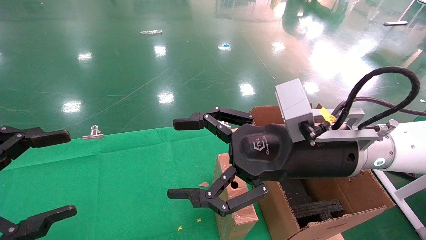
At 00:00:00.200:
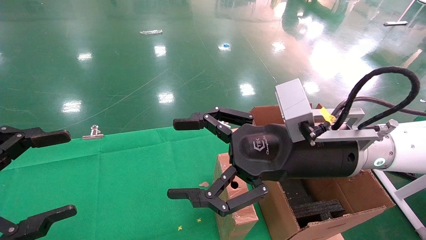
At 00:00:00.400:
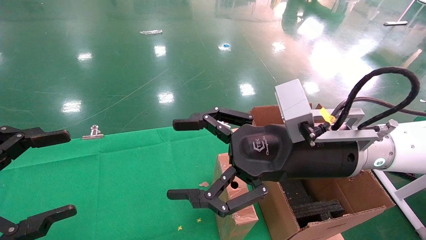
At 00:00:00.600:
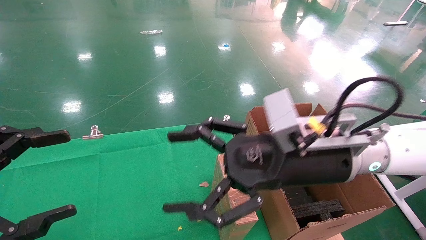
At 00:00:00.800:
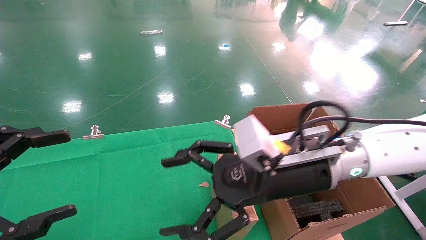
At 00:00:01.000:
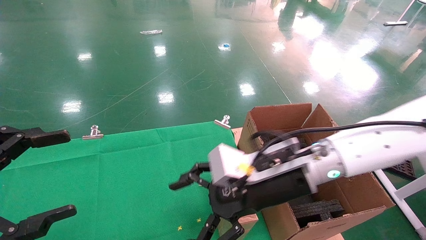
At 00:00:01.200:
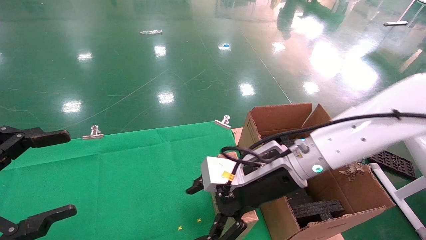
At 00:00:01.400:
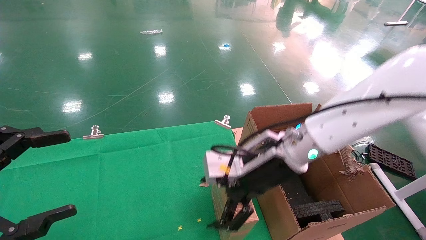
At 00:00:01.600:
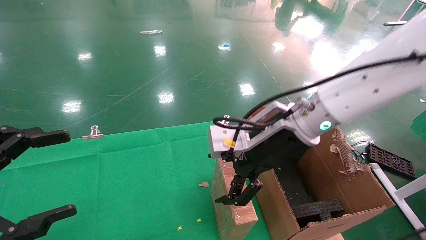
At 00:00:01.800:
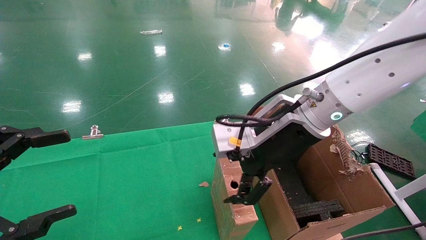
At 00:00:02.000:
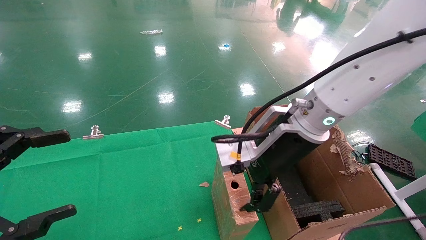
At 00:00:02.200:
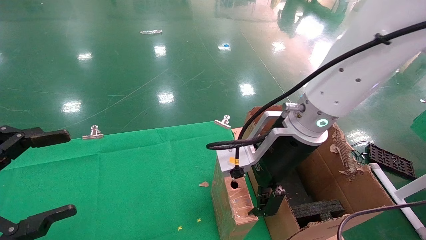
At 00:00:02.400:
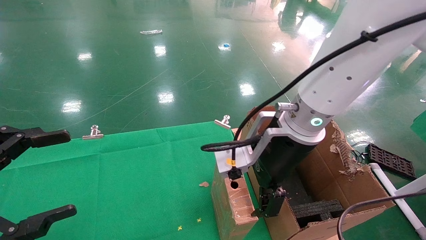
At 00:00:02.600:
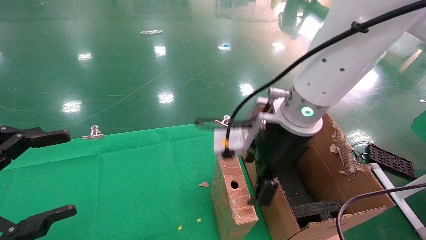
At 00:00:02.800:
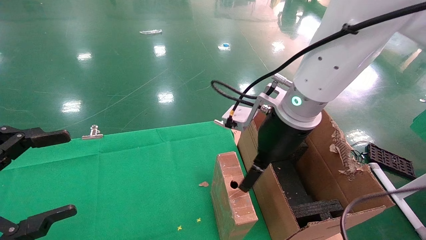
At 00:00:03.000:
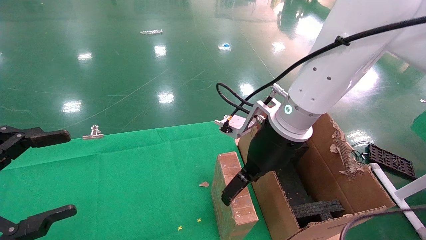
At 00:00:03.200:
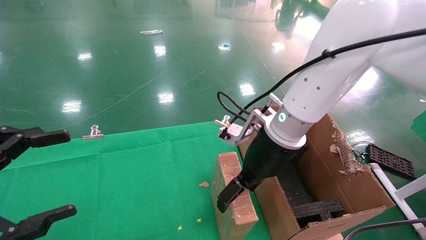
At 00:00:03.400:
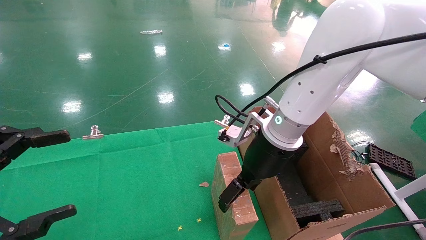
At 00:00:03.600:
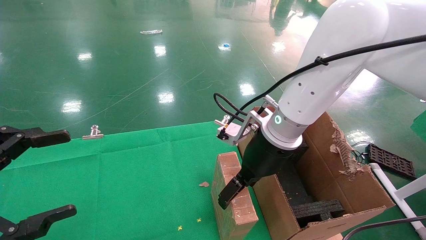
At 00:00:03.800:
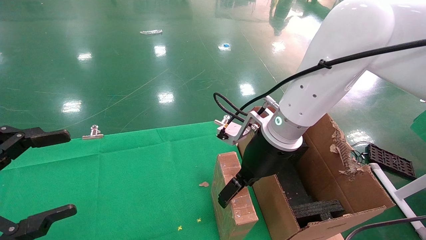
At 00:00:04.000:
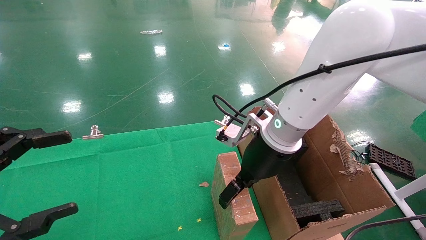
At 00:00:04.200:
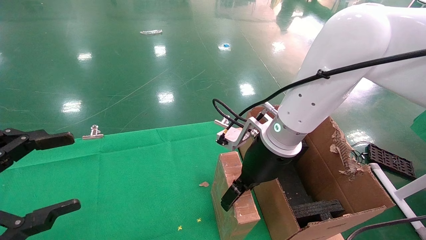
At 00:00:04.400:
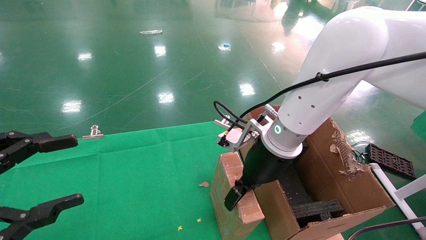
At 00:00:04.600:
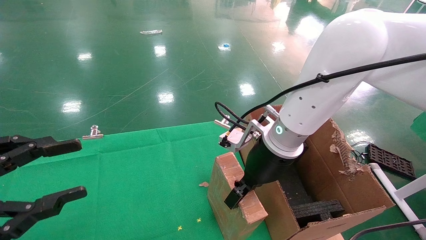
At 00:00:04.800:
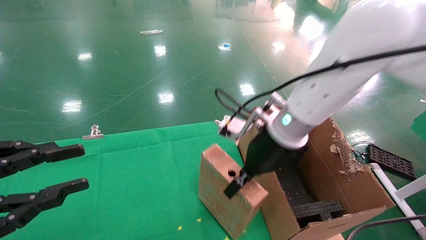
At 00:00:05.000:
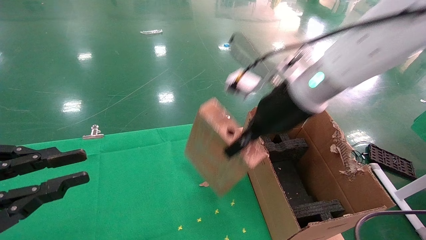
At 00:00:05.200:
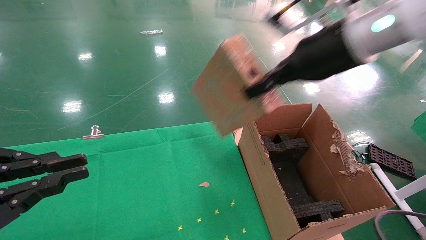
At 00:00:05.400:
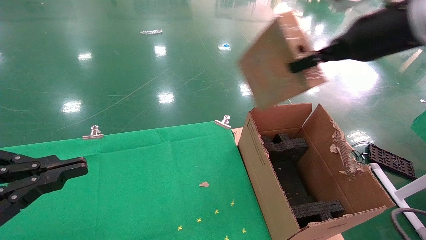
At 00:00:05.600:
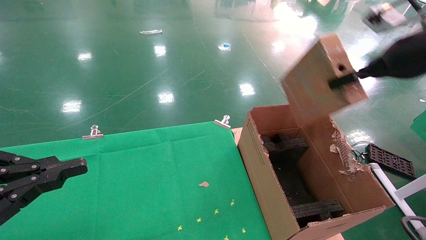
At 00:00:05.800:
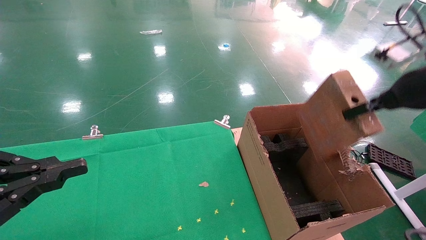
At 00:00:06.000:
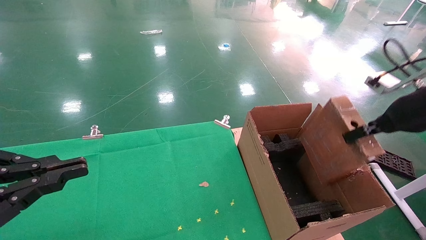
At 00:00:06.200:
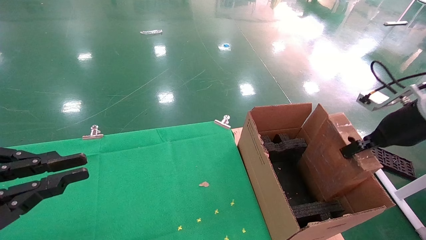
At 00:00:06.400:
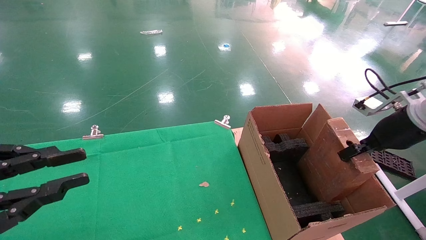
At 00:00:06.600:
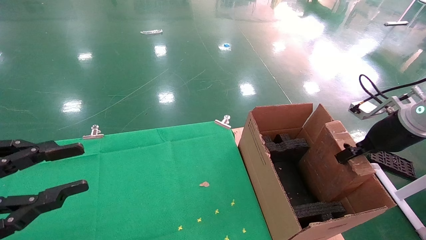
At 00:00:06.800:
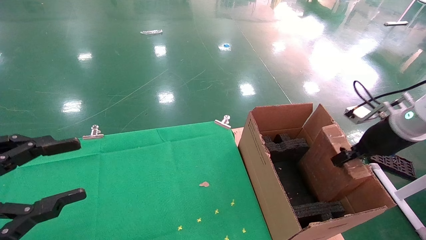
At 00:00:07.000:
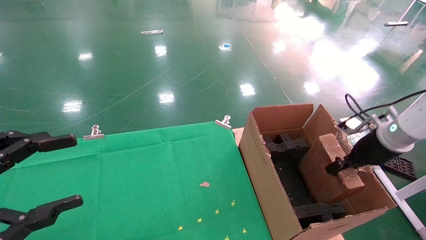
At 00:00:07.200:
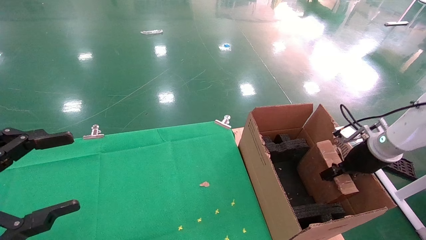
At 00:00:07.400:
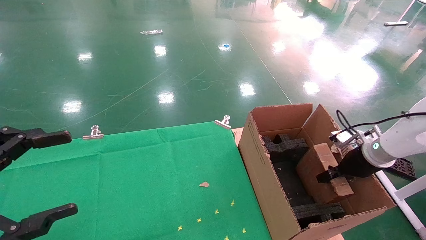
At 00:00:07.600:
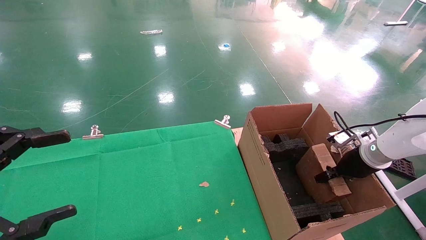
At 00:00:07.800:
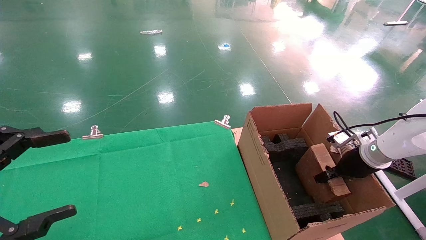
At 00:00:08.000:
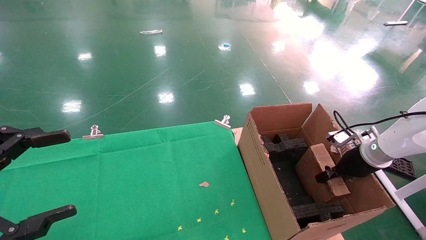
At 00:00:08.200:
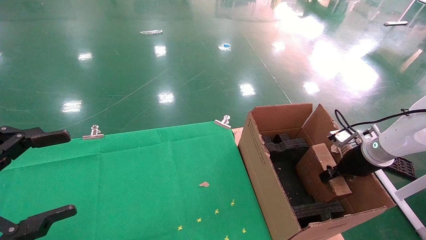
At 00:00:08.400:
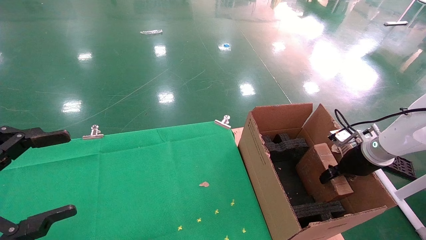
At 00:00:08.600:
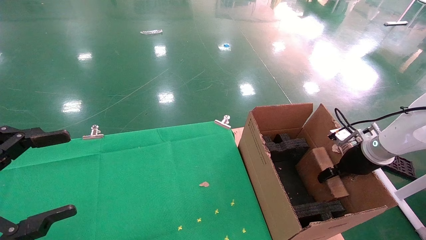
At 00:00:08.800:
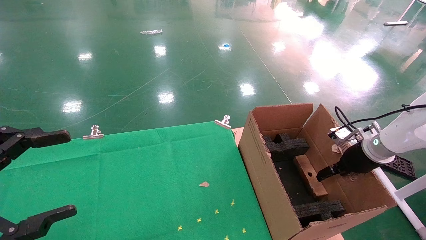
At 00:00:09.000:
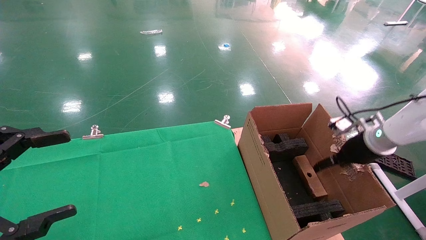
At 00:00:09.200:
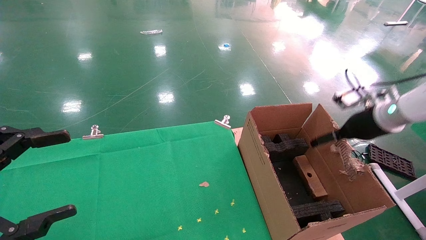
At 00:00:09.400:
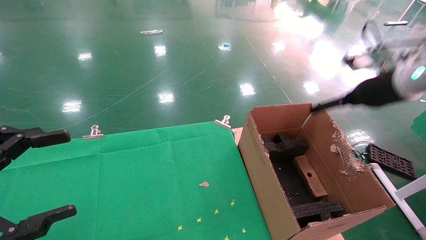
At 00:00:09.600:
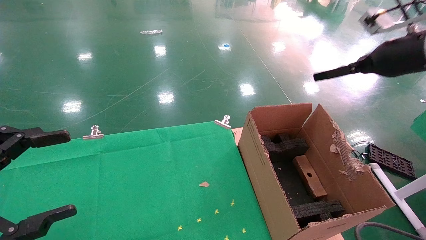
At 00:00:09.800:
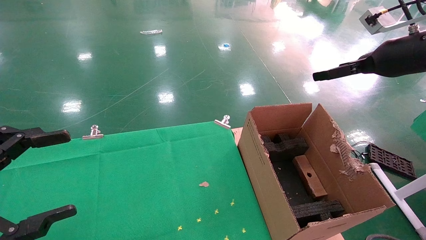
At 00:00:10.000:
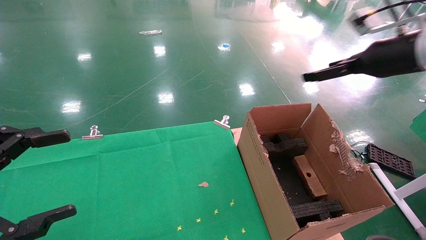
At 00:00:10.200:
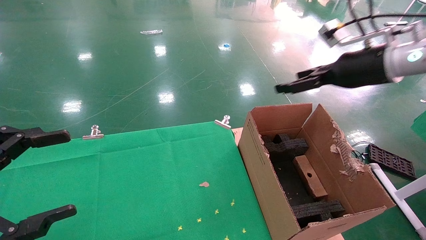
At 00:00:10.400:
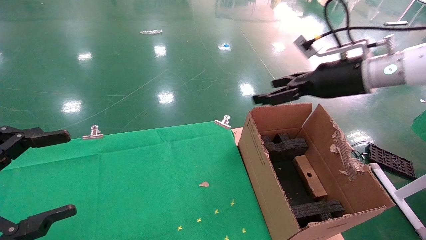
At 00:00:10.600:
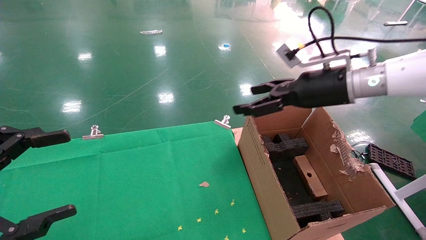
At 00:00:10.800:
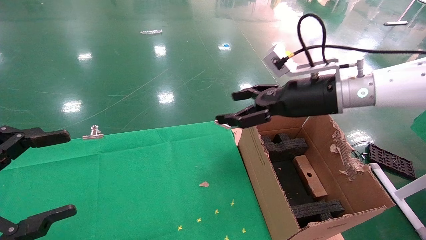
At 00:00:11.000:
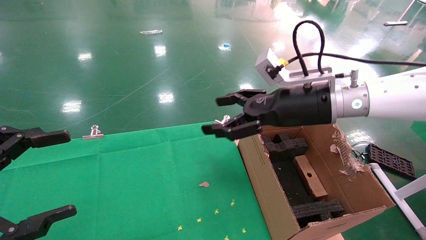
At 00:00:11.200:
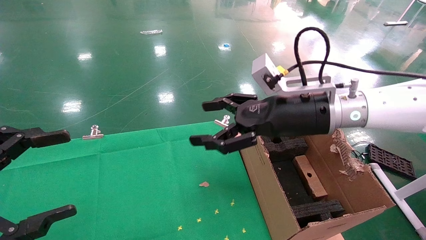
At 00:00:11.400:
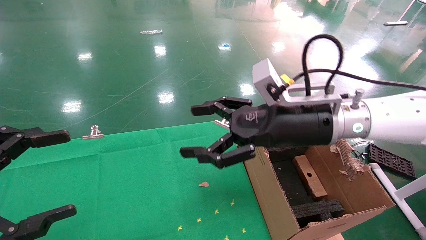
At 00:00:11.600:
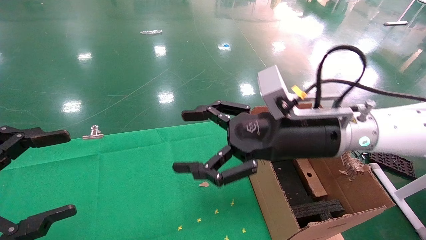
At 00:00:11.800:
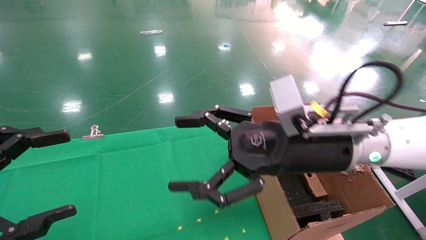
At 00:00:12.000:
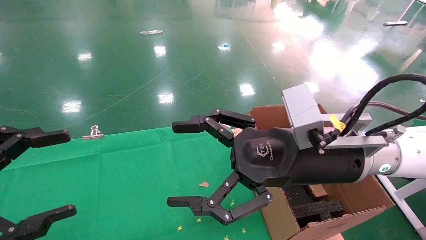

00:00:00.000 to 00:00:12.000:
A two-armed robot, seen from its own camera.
Task of the whole recording: using a robotic arm to pick up a cardboard box and palace it the carton.
Step, 00:00:01.000 to 00:00:04.400: Pick up the mouse and the power cord paper box.
Step, 00:00:04.600 to 00:00:09.400: Place the mouse and the power cord paper box into the container.
00:00:00.000 to 00:00:01.600: The right gripper is displaced forward by approximately 5 cm.
00:00:03.000 to 00:00:04.400: The right gripper closes.
00:00:04.400 to 00:00:06.000: The right gripper is displaced to the right by some 30 cm, and closes its fingers, while the left gripper closes up.
00:00:06.000 to 00:00:07.600: The right gripper shifts roughly 20 cm downward and forward. Meanwhile the left gripper opens up.
00:00:07.600 to 00:00:09.000: The right gripper goes about 5 cm upward, and opens its fingers.
00:00:09.000 to 00:00:10.400: The right gripper travels upward and to the left by approximately 20 cm.
00:00:10.400 to 00:00:12.000: The right gripper shifts about 20 cm to the left, backward and downward.

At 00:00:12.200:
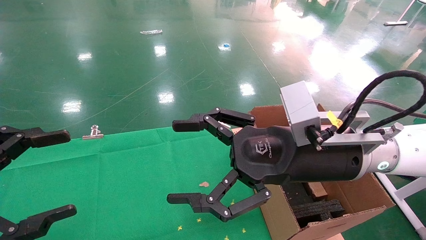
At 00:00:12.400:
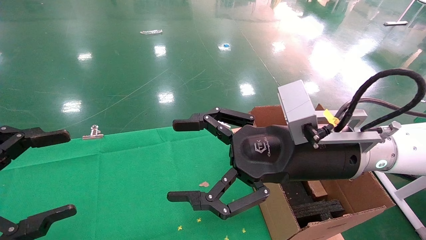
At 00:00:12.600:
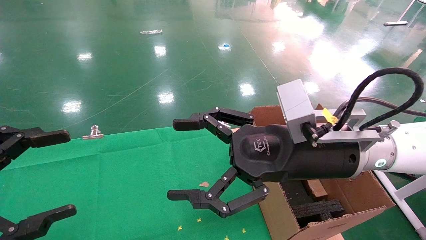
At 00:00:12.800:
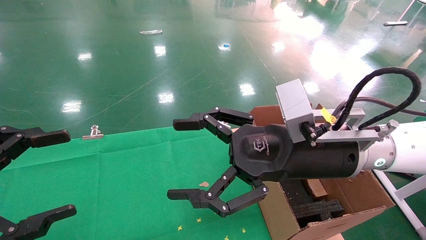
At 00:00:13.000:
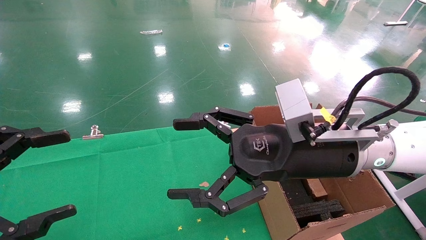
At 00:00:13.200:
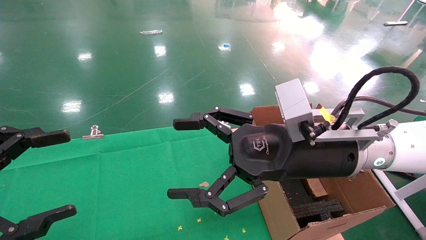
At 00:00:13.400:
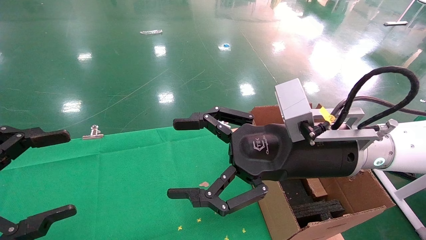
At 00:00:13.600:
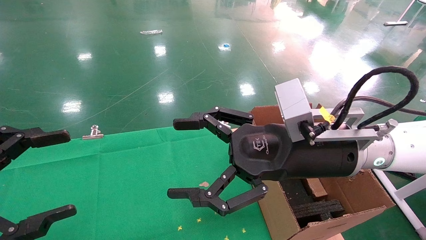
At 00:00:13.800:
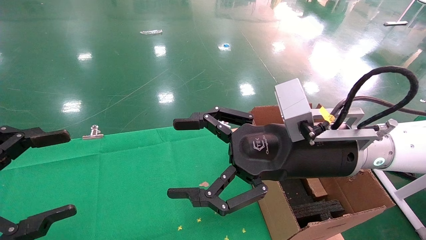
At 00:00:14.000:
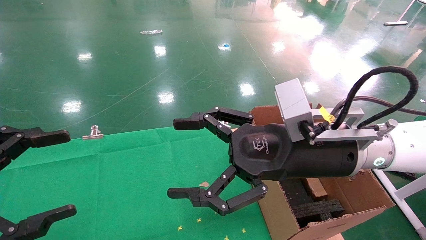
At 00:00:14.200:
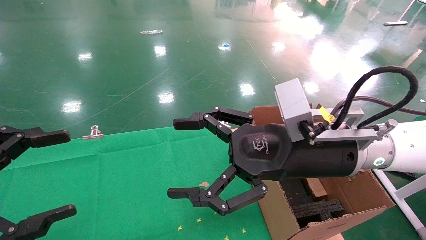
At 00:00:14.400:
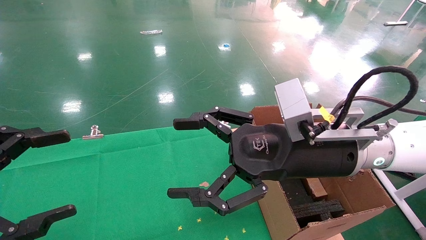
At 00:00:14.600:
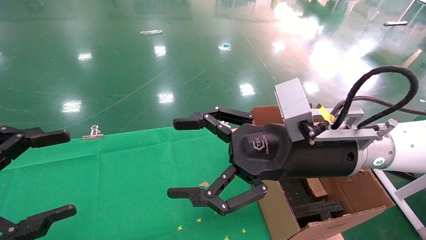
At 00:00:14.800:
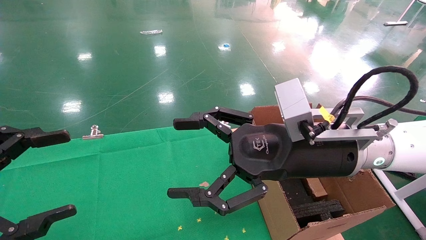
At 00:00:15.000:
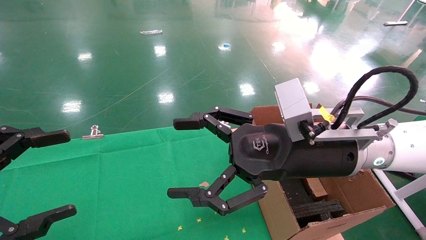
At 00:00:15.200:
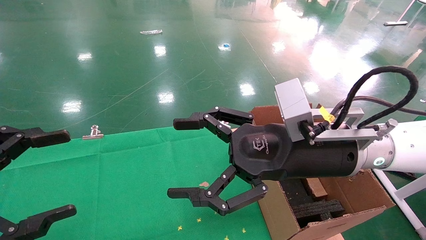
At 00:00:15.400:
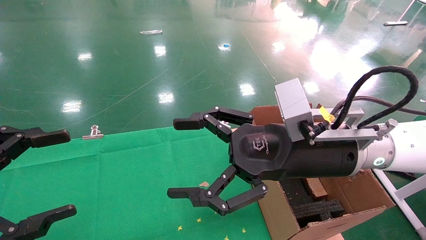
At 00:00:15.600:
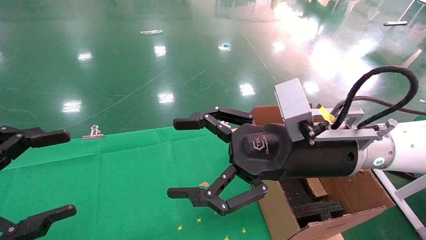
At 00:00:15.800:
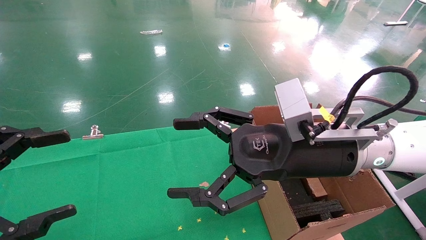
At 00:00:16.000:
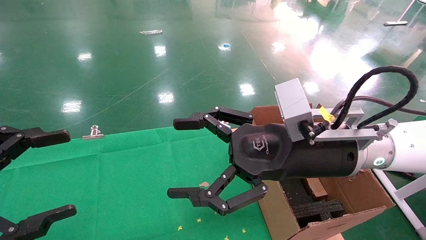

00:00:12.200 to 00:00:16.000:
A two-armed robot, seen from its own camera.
Task of the whole recording: using a robotic arm to pick up a cardboard box and palace it the carton.
00:00:12.200 to 00:00:16.000: The two grippers keep their place.
